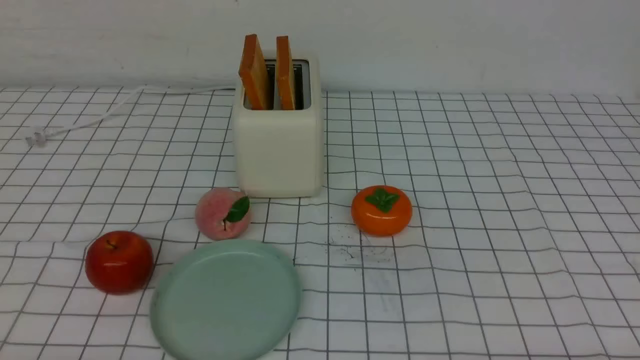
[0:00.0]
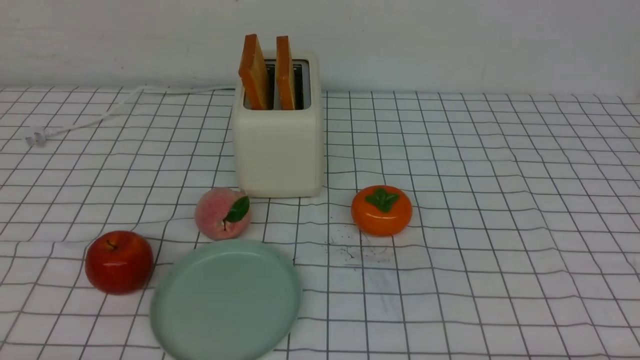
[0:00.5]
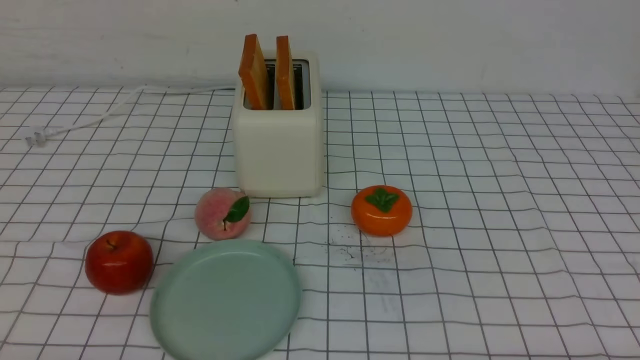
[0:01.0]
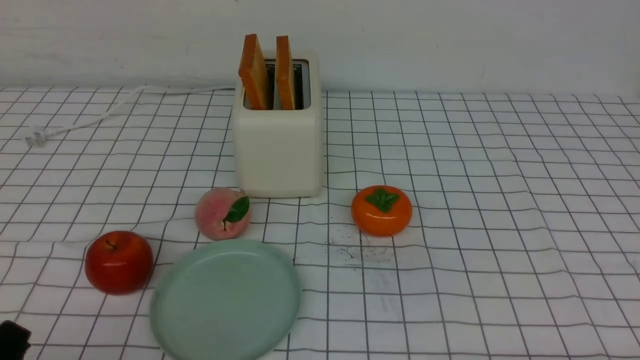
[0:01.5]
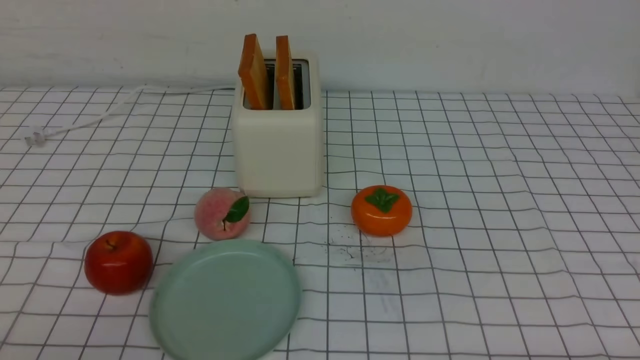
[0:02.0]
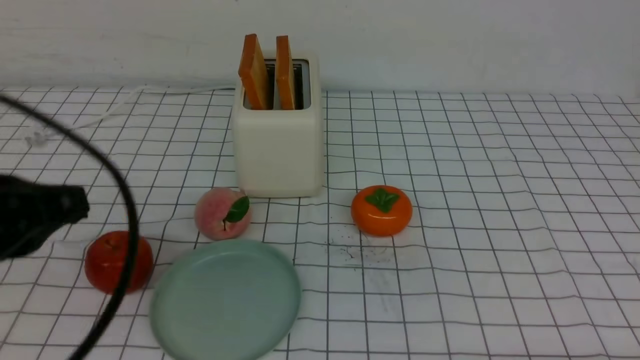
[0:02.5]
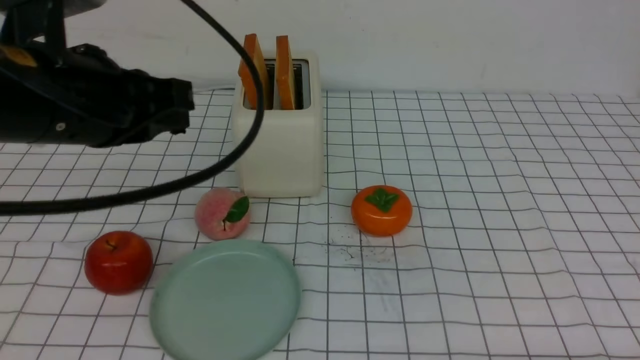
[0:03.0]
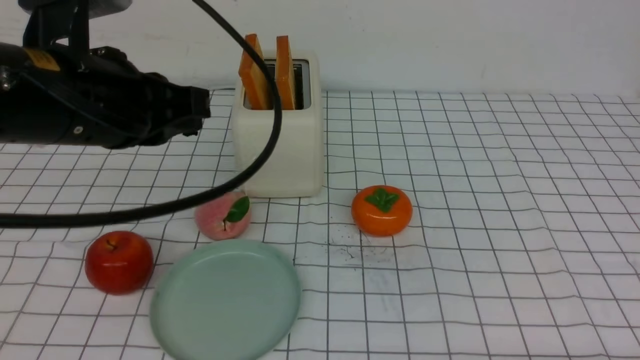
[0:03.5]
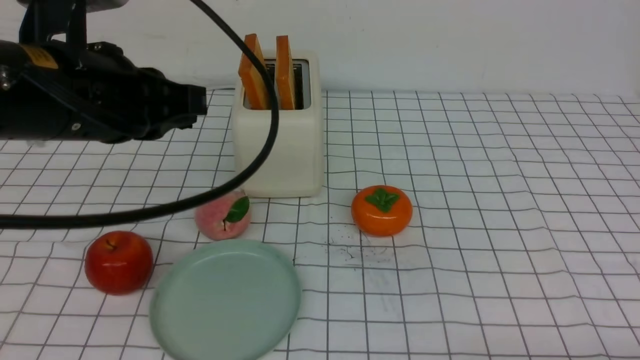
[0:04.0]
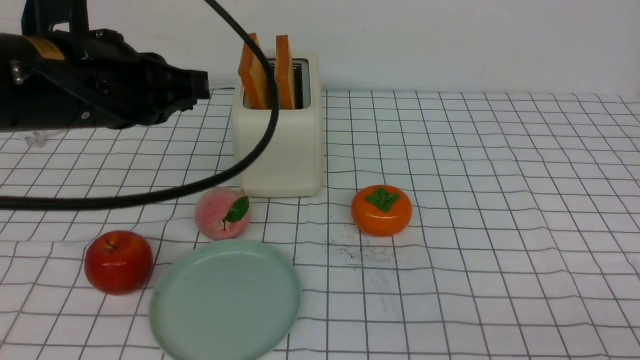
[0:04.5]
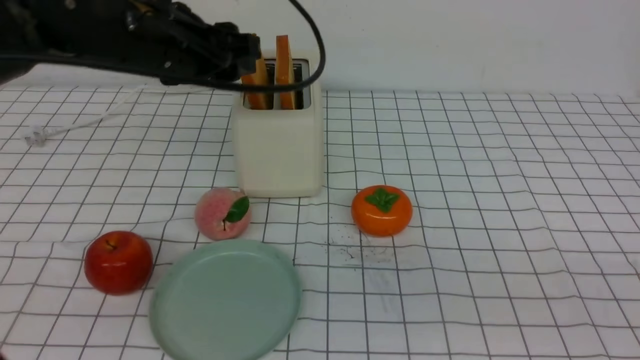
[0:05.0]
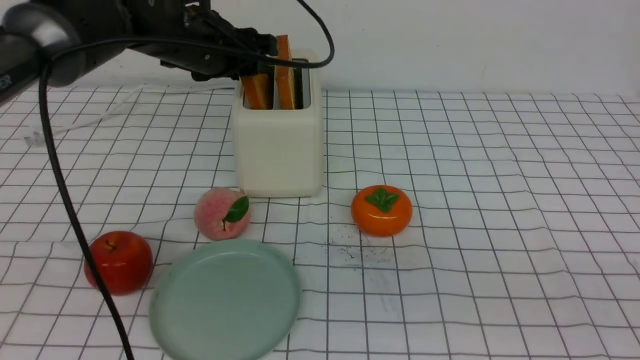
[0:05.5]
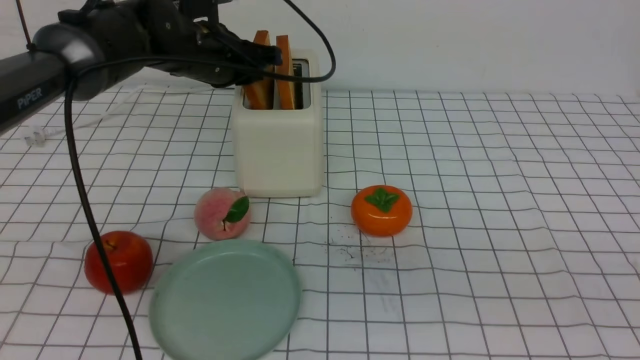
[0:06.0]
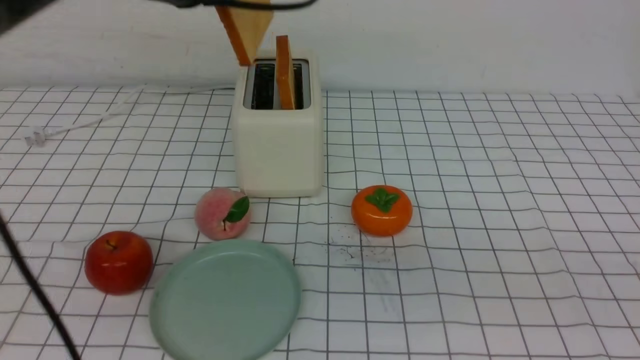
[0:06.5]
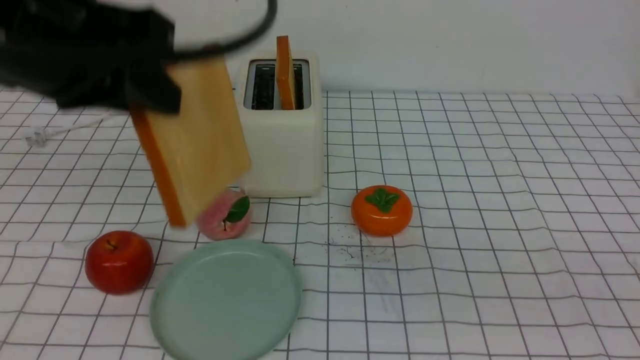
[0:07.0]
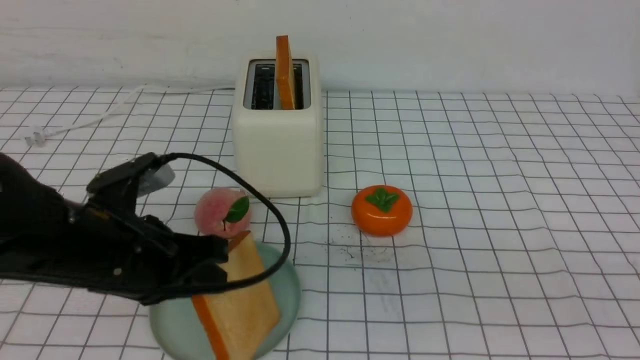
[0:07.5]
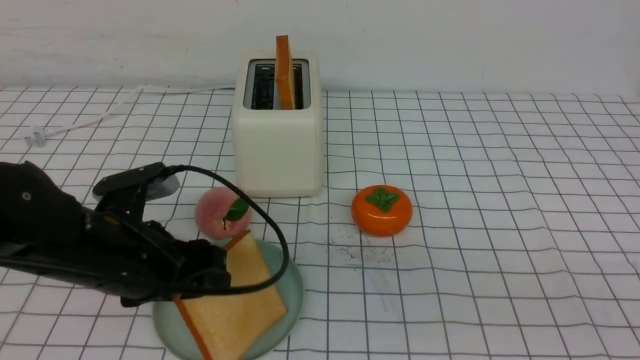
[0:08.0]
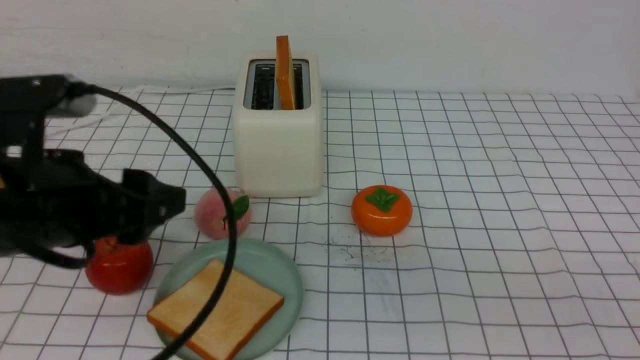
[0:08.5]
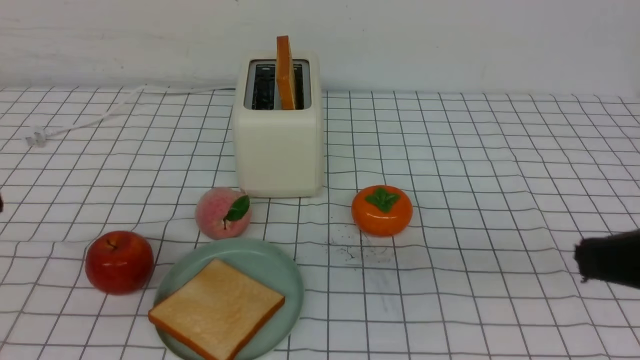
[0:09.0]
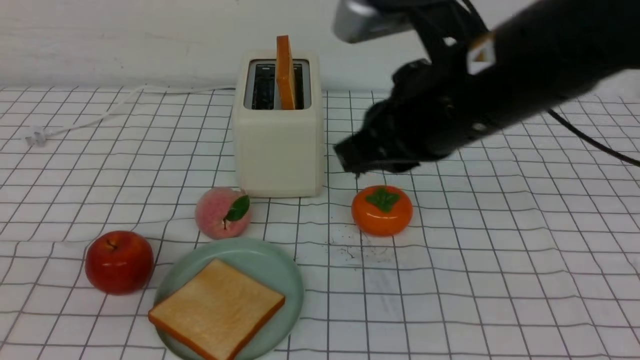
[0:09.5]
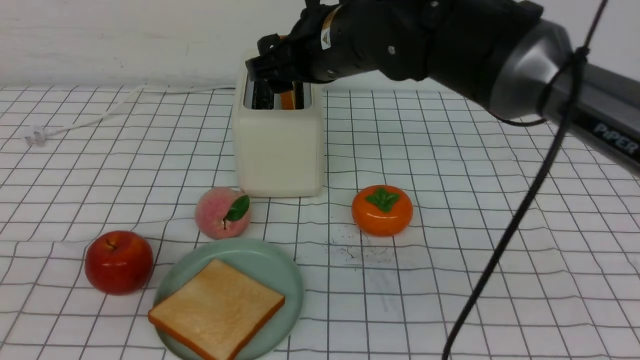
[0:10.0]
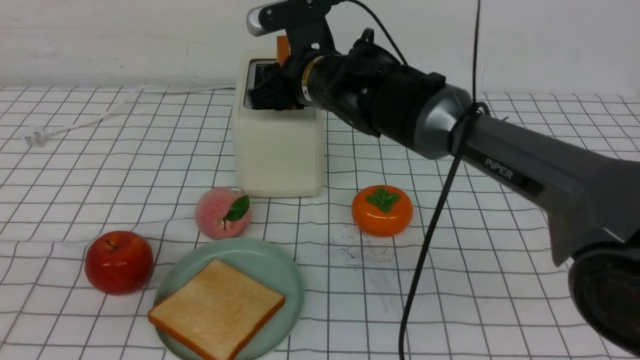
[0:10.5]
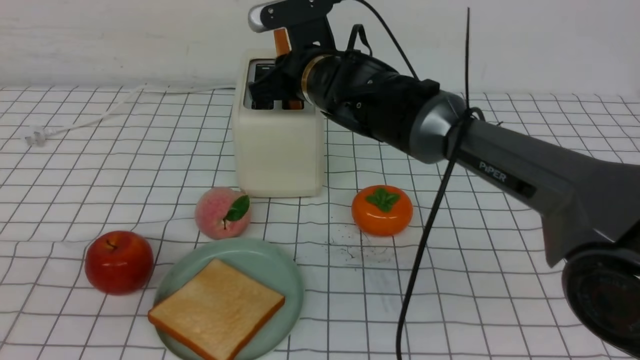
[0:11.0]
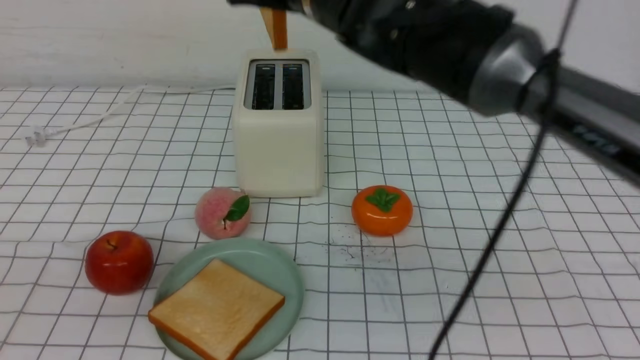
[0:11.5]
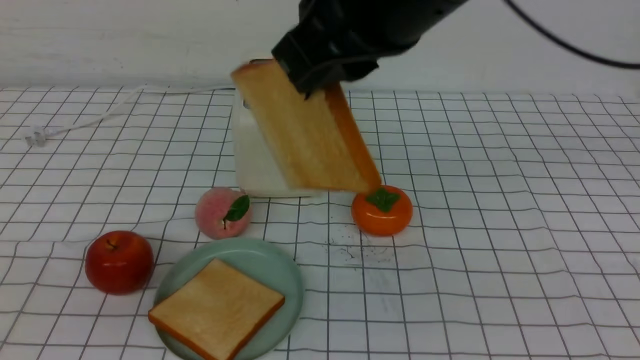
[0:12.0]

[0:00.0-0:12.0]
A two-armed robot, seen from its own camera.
Task of the whole recording: take toasted bread from bread machine on white checkered table place on plate.
Step, 0:00.0 to 0:06.0: use the left arm to take out a slice of bread.
Step, 0:06.5 to 0:08.0: use the left arm to put a slice of bread into the empty plate.
Step, 0:08.5 to 0:11.0: use the right arm to take out a slice of bread.
0:02.0 to 0:04.0: The left gripper heads forward, upward and to the right, covering some 25 cm.
0:04.0 to 0:06.0: The right gripper goes roughly 20 cm upward; the left gripper is displaced forward by some 20 cm, and opens, then closes once more.
0:06.0 to 0:08.0: The left gripper travels backward by roughly 20 cm, and opens.
0:08.0 to 0:10.0: The right gripper is displaced forward and to the left by roughly 40 cm, and opens up. Meanwhile the left gripper travels backward and upward by some 25 cm, and closes.
0:10.0 to 0:12.0: The right gripper heads backward and upward, covering roughly 15 cm, and closes up.

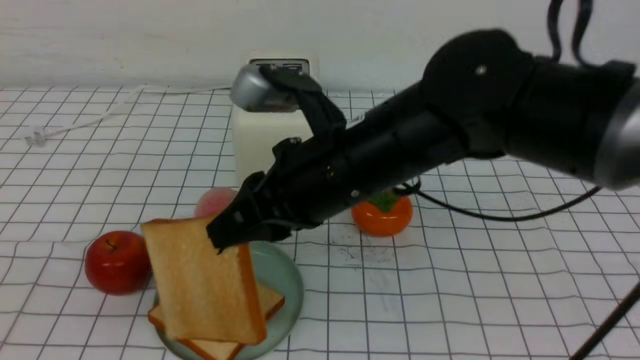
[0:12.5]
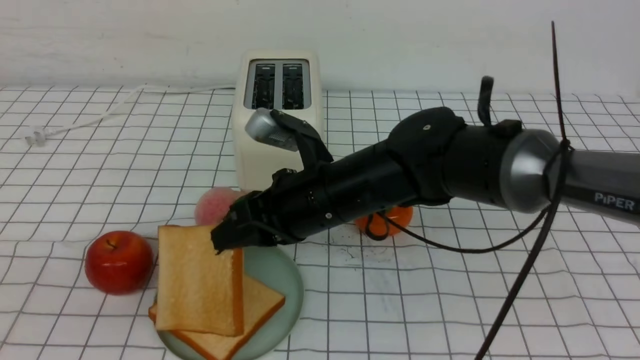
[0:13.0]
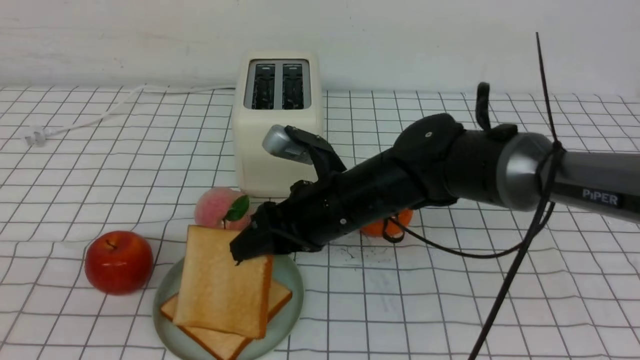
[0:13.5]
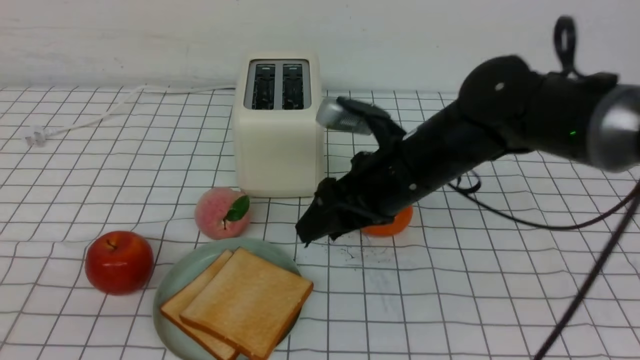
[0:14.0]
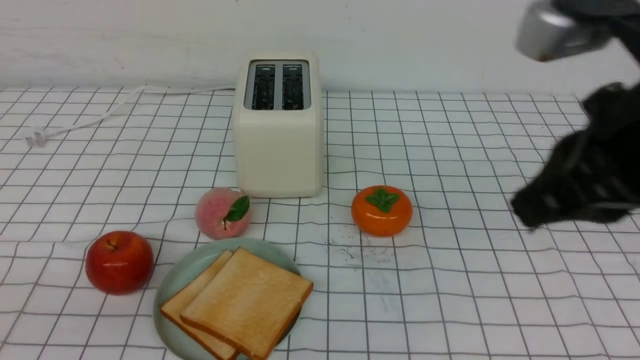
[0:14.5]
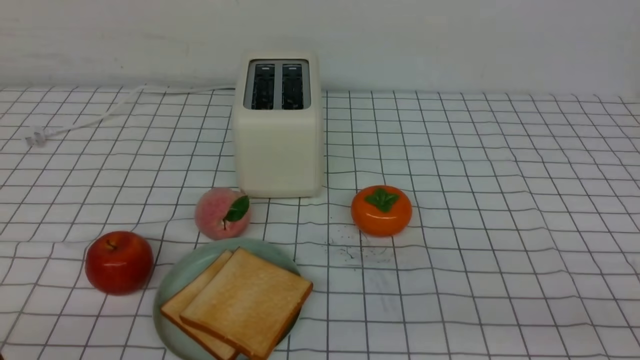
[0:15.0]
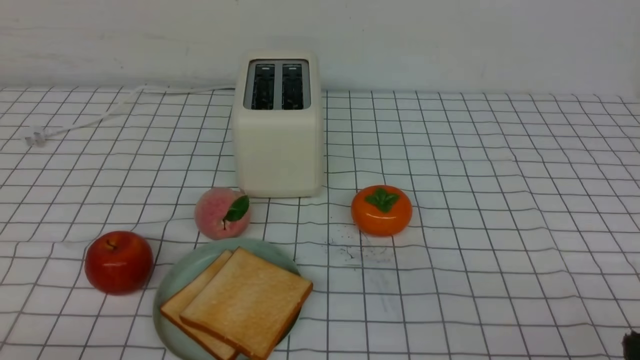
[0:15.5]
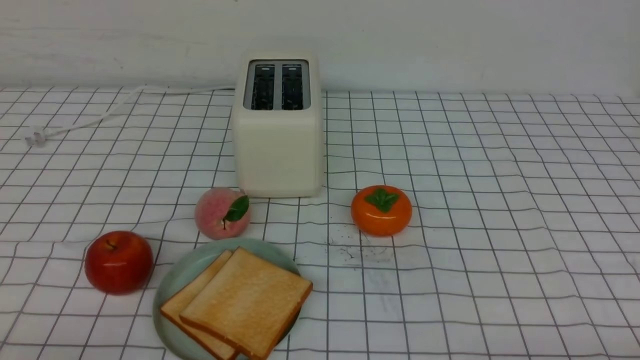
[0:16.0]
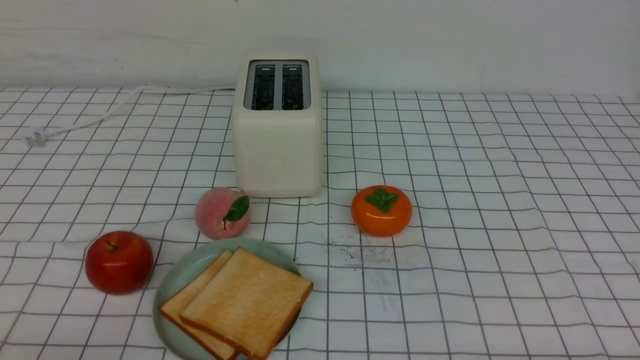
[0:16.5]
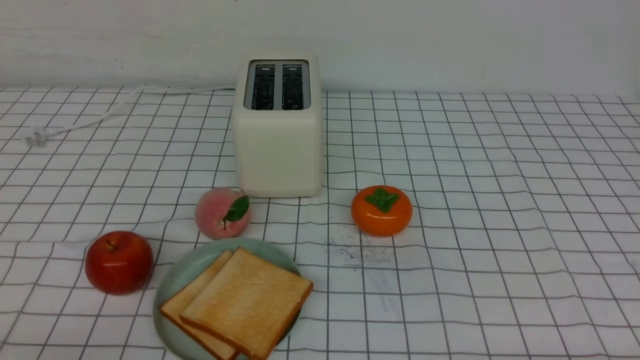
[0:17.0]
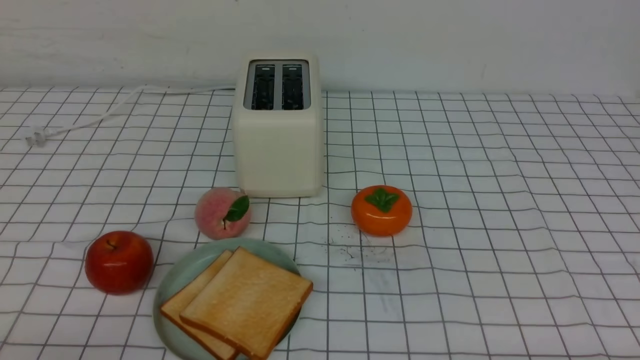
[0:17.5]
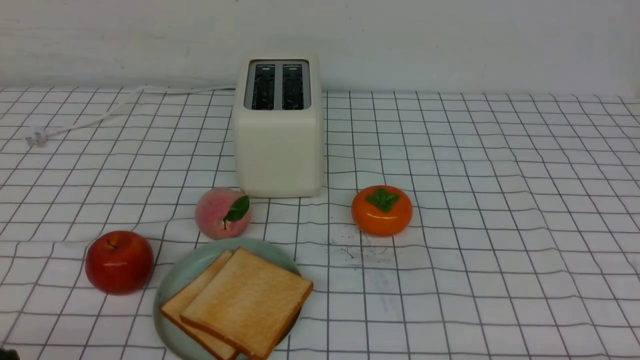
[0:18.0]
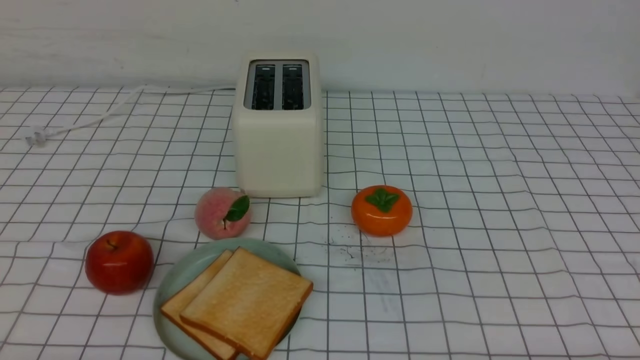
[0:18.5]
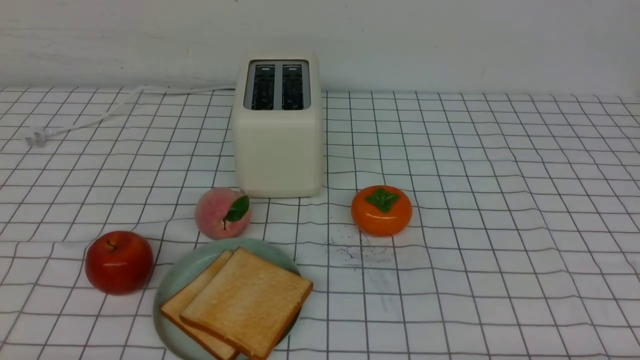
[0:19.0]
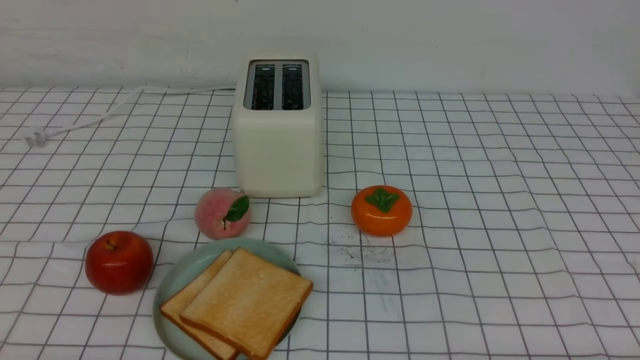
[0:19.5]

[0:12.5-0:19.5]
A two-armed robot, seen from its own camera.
Task of the whole recording: take toasted bread from bread machine on white checkered table place on plate.
0:12.5 to 0:14.5: The right gripper moves to the right, backward and upward, approximately 20 cm, and opens, then closes again.
0:14.5 to 0:16.0: The right gripper travels downward, backward and to the right by roughly 25 cm; the left gripper heads downward, covering approximately 10 cm.

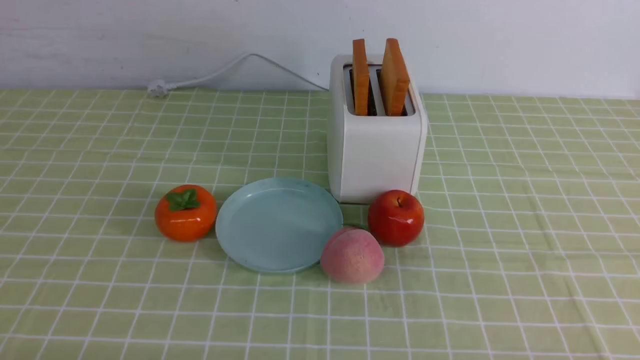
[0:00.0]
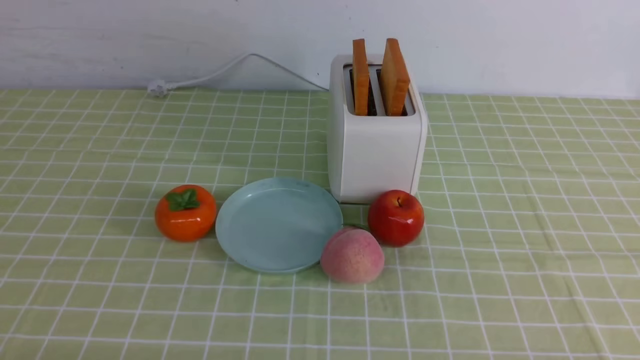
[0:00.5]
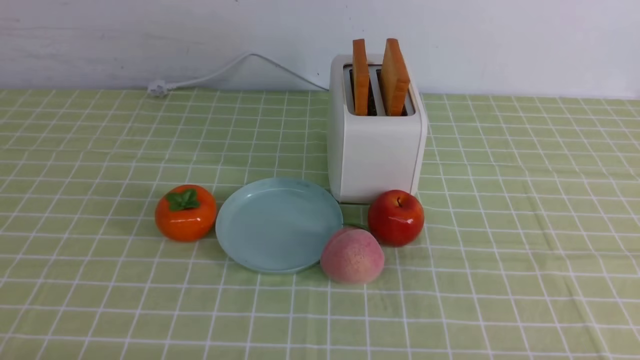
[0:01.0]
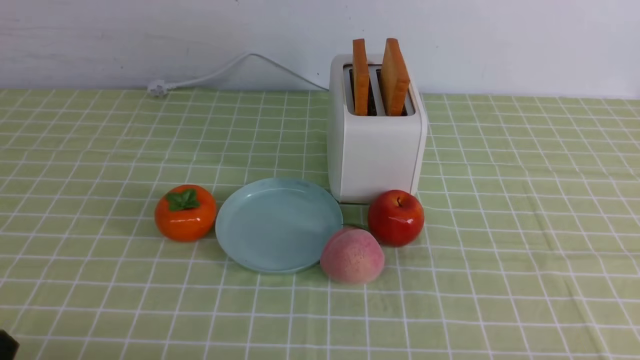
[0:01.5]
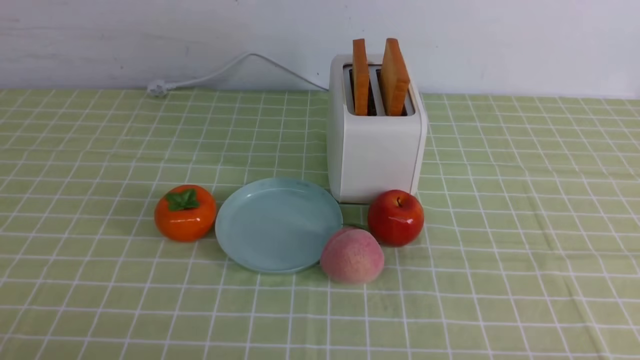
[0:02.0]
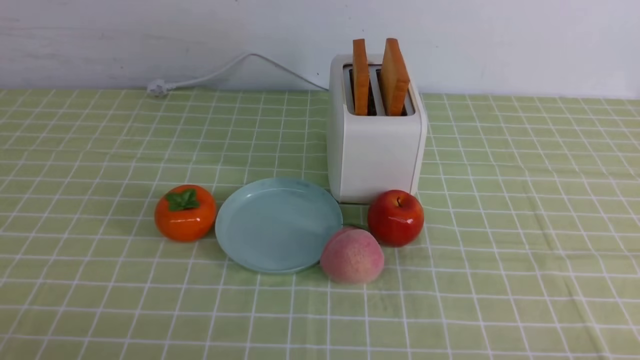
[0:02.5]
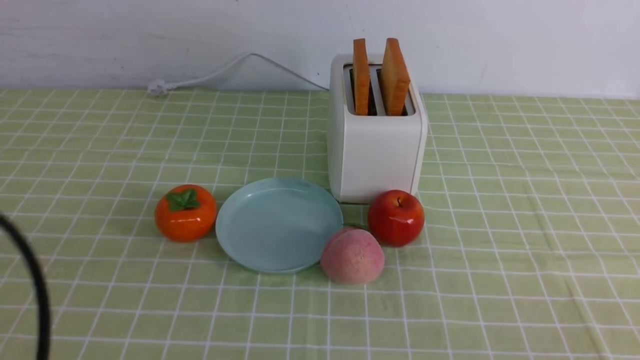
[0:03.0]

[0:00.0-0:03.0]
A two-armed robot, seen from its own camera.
Task of the whole recording: take toasted bread from bread machine on green coffee tablecloth place on plate.
0:01.5 to 0:03.0: The left gripper shifts roughly 15 cm upward and forward, and closes.
